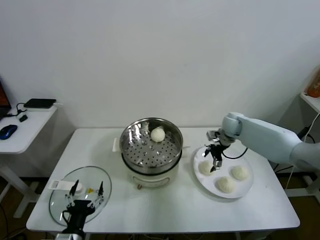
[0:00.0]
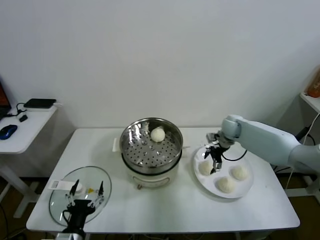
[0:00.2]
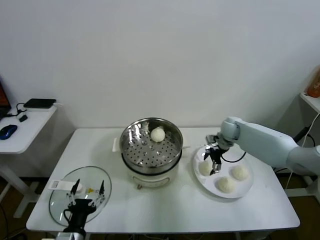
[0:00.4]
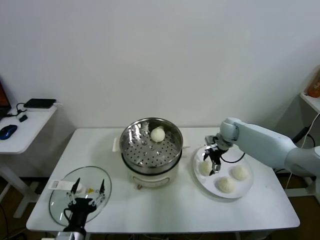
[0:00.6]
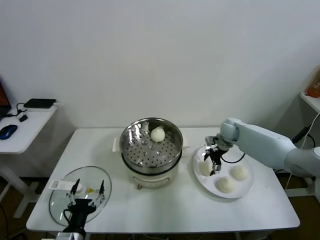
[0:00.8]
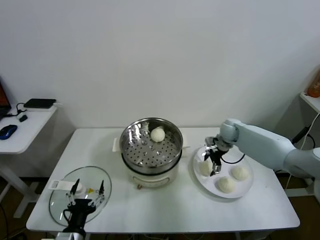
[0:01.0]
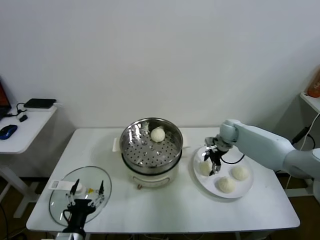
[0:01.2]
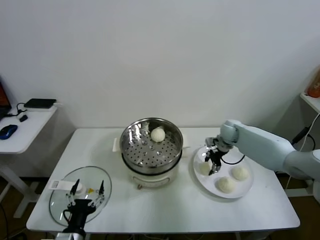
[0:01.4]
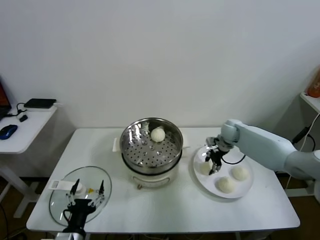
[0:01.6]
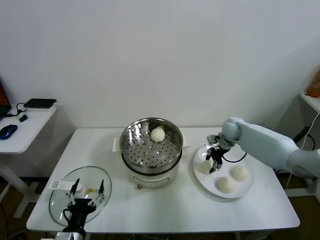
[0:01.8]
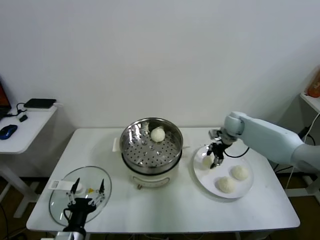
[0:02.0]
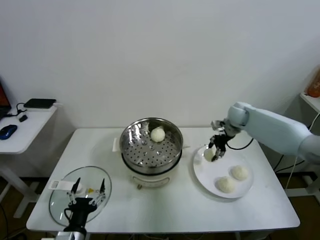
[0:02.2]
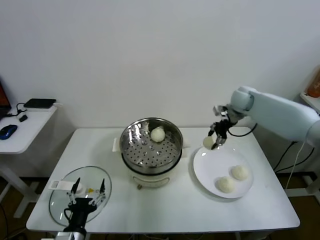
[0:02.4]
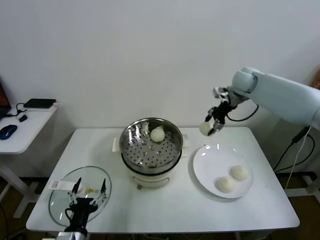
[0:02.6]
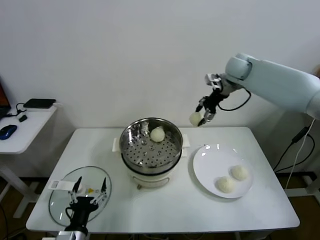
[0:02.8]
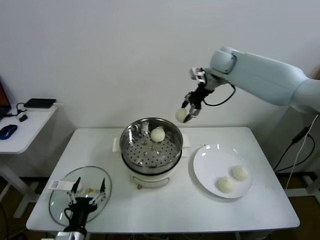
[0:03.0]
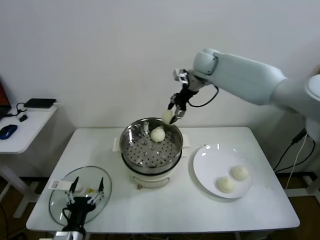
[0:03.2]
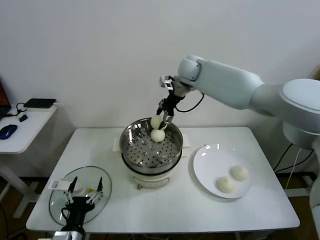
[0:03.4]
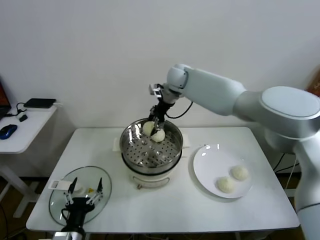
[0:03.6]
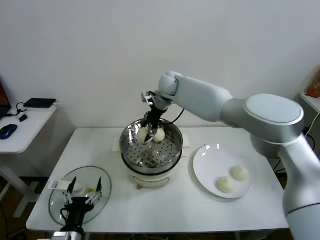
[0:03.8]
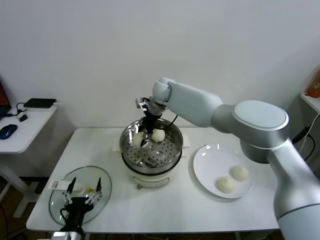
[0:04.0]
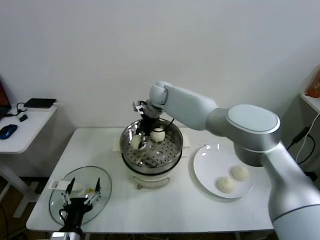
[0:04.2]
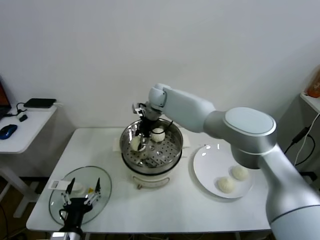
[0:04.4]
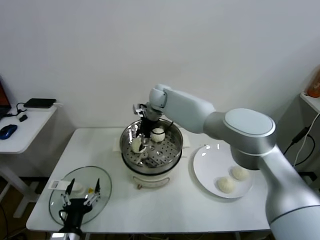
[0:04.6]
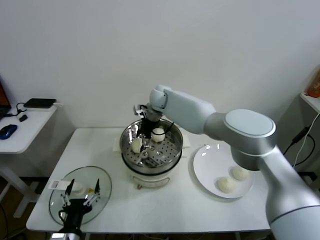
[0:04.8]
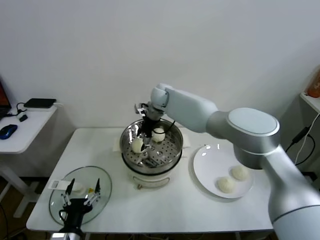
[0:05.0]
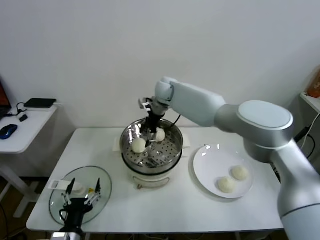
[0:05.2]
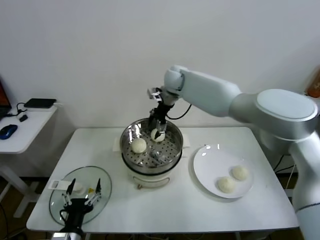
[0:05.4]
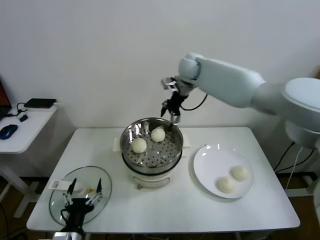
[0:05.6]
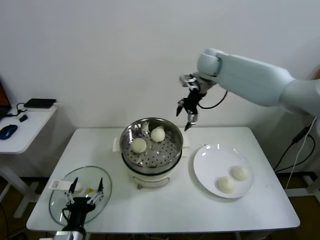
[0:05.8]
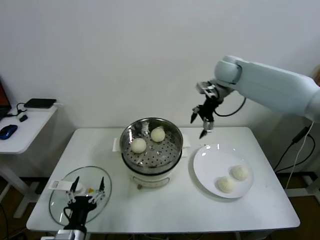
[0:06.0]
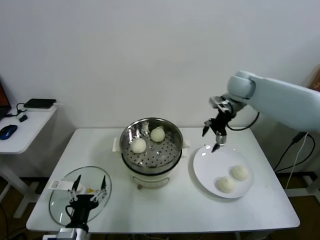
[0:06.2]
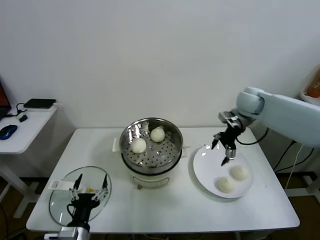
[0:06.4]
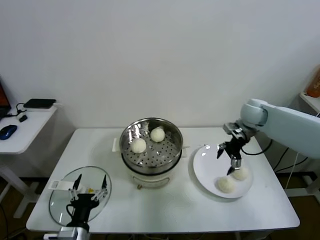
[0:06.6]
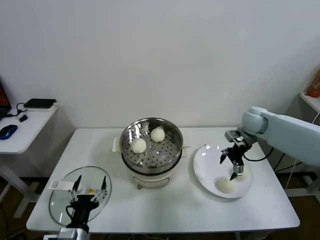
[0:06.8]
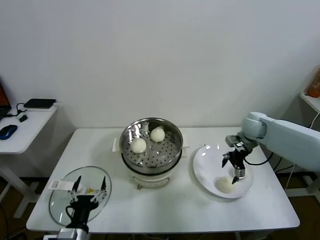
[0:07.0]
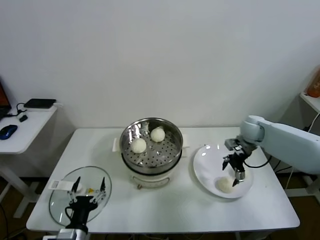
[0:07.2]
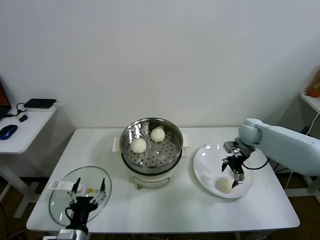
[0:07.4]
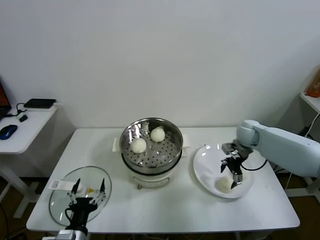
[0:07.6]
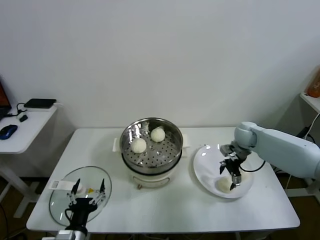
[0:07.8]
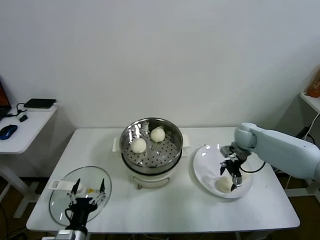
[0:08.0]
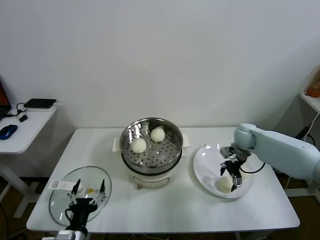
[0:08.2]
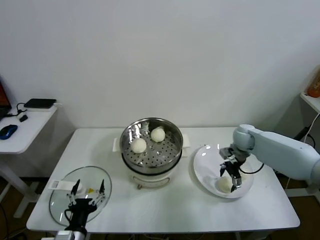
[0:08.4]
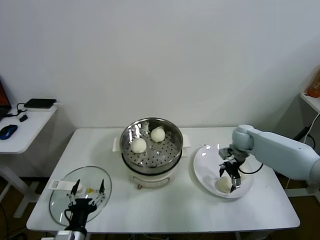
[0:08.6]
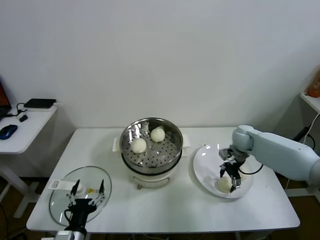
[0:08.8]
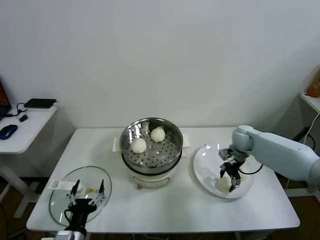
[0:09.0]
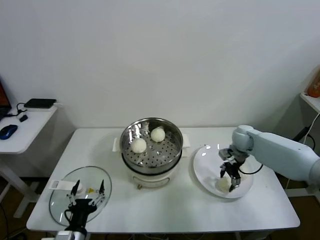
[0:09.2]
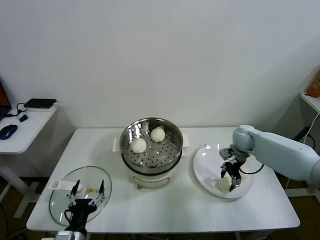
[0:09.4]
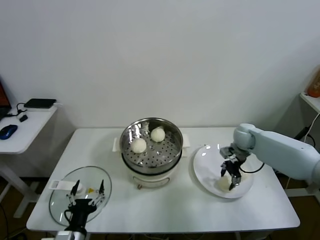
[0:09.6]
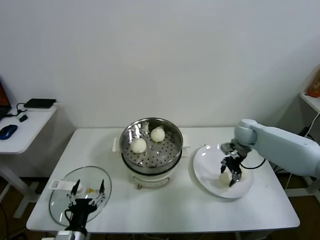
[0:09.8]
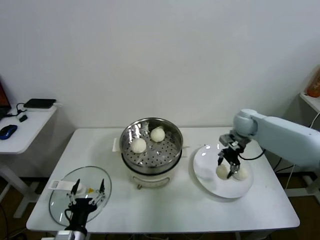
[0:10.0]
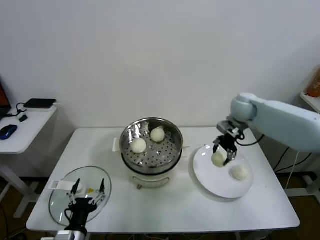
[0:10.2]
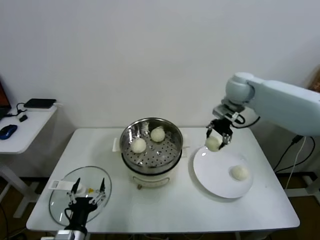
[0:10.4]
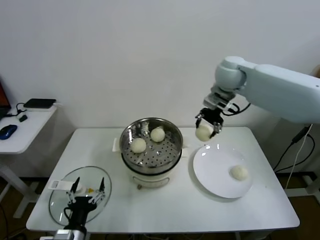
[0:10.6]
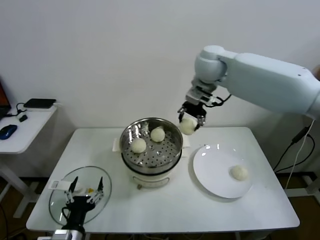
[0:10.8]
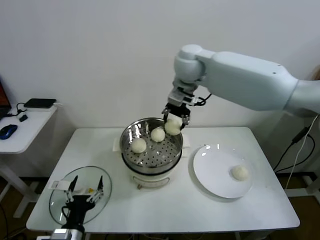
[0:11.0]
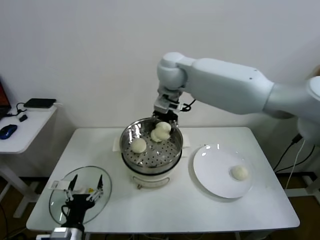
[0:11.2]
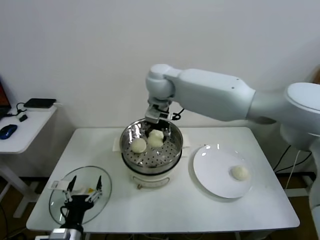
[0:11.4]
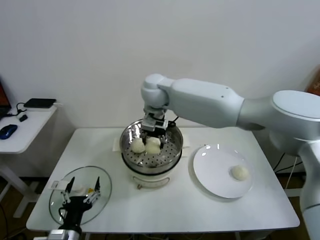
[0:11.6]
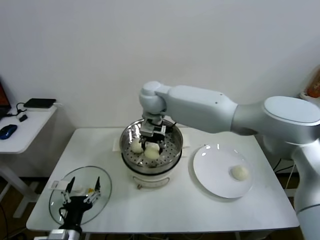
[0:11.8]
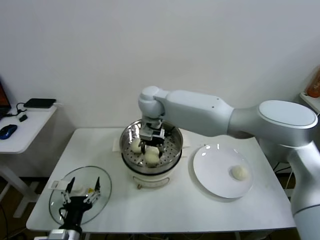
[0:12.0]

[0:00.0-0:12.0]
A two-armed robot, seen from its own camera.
Task of the whole recording: take steamed baozi put them in steamer.
Step, 0:01.8 to 0:05.0: Place the baozi on the steamer with right gripper.
Step, 0:05.2 to 0:09.8: Grasp the baozi in the plate with right gripper.
0:00.0 to 0:01.6: The right gripper closes up.
0:01.6 to 0:03.0: The right gripper heads upward and to the left, covering about 30 cm.
0:03.0 to 0:04.4: The right gripper shifts some 20 cm to the left and downward.
0:04.4 to 0:06.0: The right gripper goes about 25 cm to the right, and opens its fingers.
0:06.0 to 0:07.6: The right gripper is displaced downward by about 20 cm.
0:07.6 to 0:09.0: The right gripper closes up.
0:09.0 to 0:10.4: The right gripper is displaced upward by some 25 cm.
0:10.4 to 0:12.0: The right gripper heads to the left, covering about 25 cm.

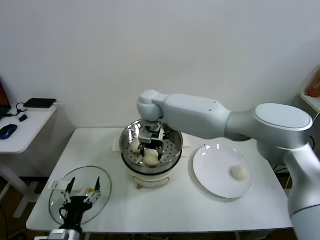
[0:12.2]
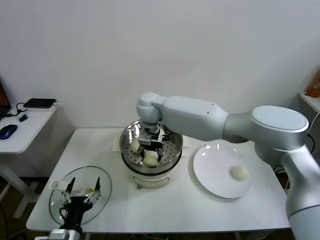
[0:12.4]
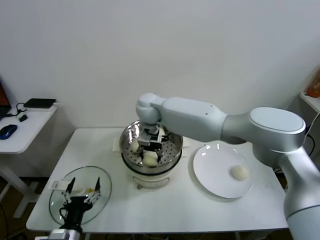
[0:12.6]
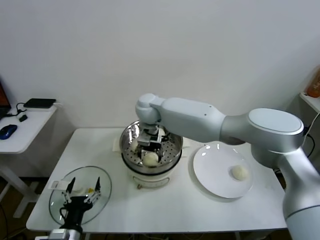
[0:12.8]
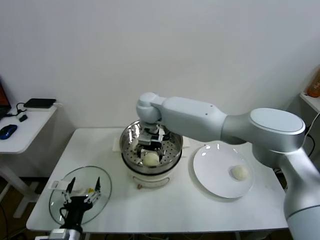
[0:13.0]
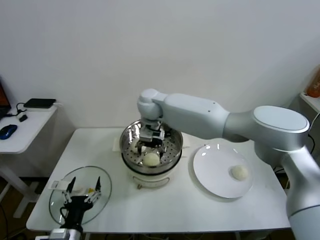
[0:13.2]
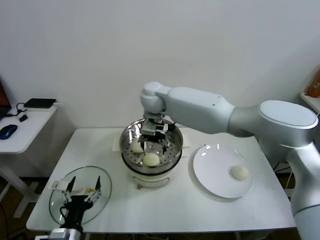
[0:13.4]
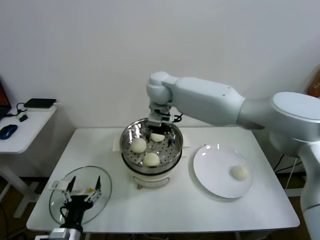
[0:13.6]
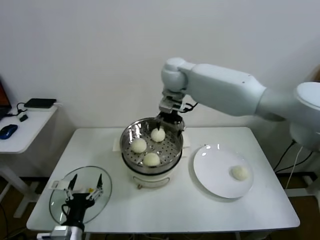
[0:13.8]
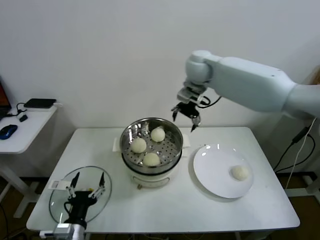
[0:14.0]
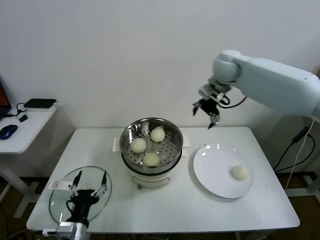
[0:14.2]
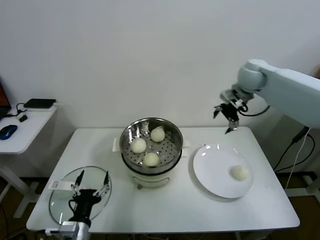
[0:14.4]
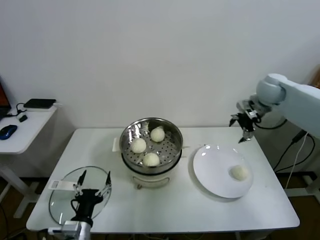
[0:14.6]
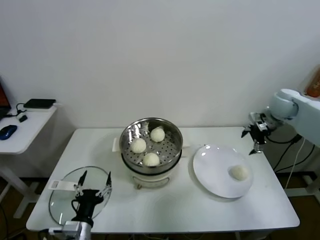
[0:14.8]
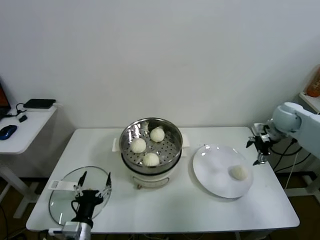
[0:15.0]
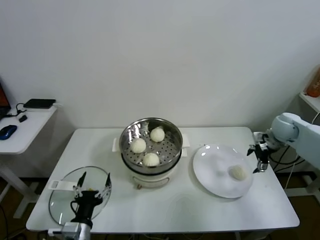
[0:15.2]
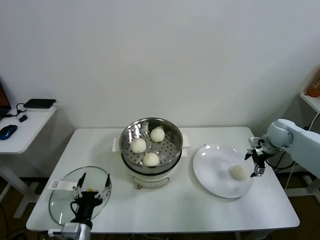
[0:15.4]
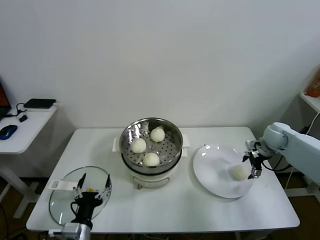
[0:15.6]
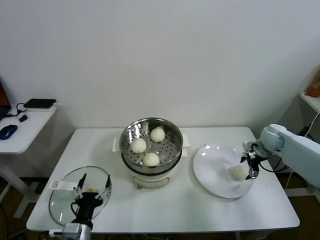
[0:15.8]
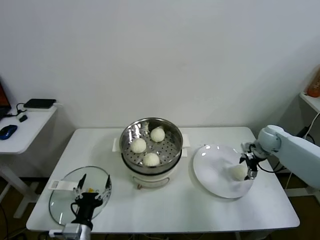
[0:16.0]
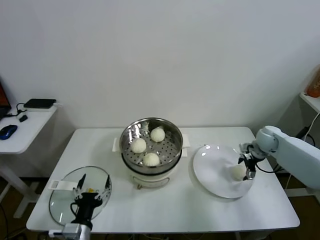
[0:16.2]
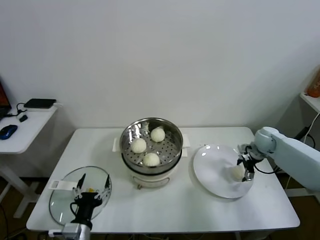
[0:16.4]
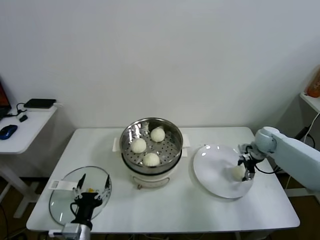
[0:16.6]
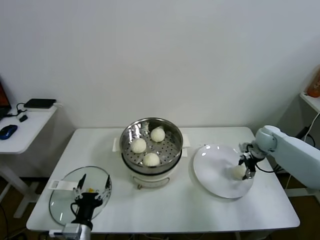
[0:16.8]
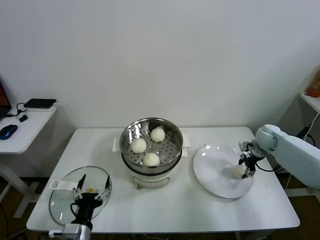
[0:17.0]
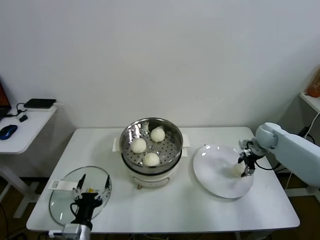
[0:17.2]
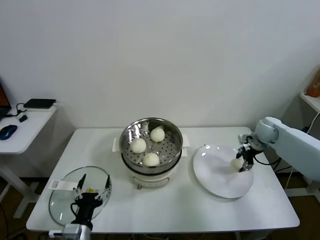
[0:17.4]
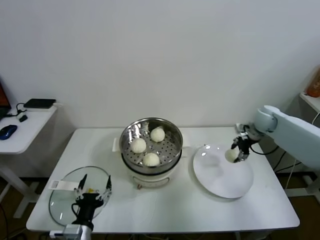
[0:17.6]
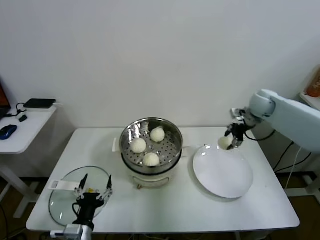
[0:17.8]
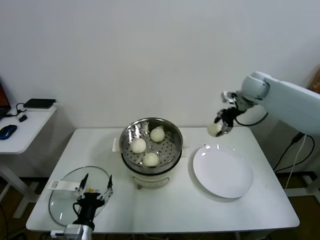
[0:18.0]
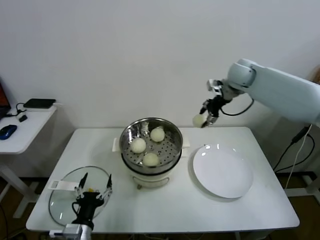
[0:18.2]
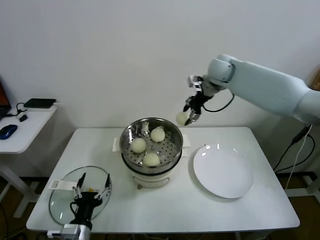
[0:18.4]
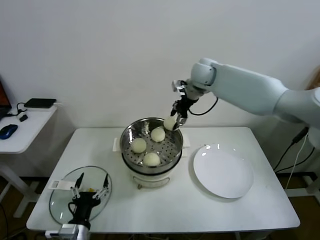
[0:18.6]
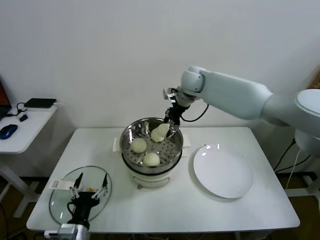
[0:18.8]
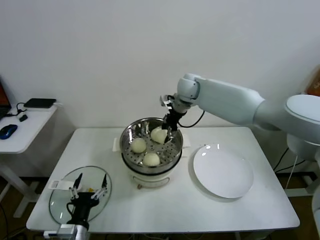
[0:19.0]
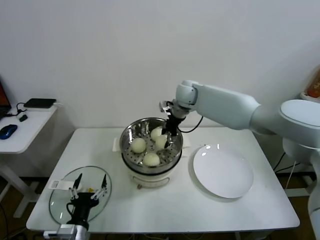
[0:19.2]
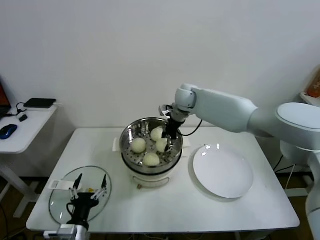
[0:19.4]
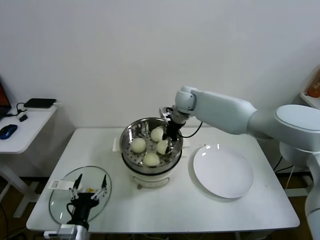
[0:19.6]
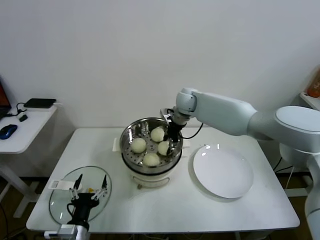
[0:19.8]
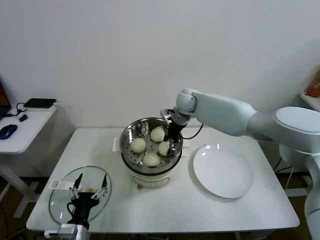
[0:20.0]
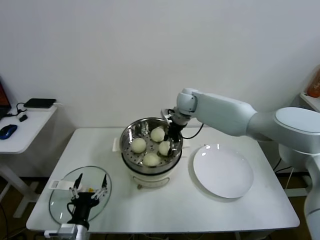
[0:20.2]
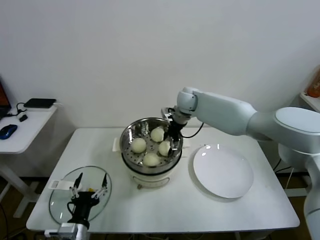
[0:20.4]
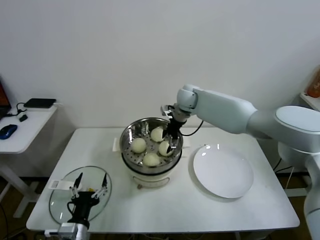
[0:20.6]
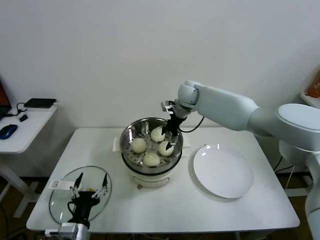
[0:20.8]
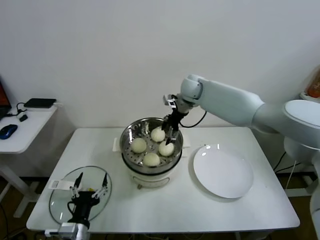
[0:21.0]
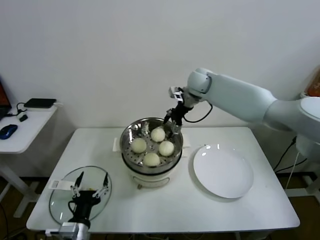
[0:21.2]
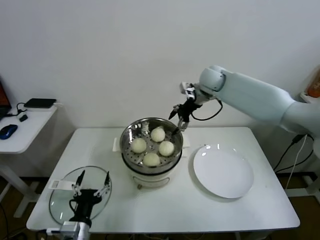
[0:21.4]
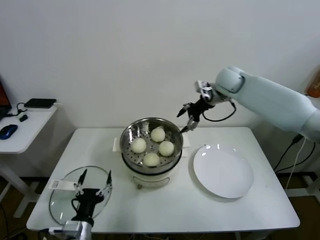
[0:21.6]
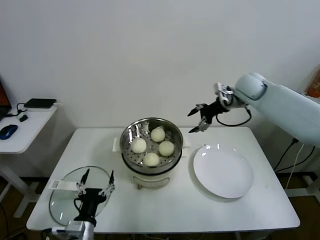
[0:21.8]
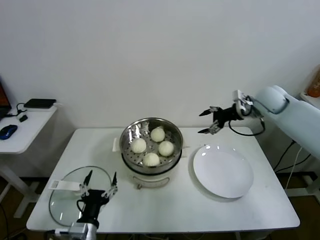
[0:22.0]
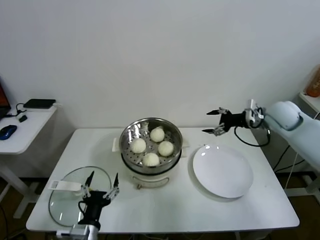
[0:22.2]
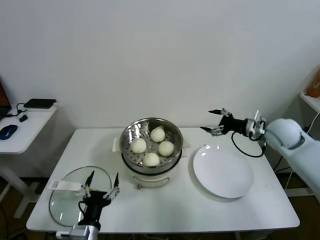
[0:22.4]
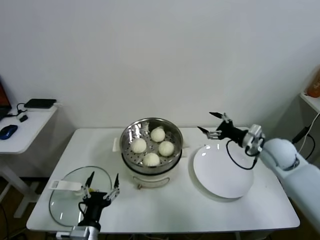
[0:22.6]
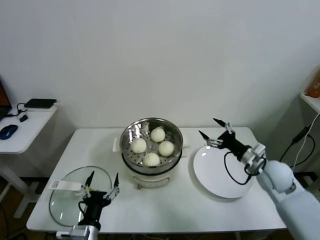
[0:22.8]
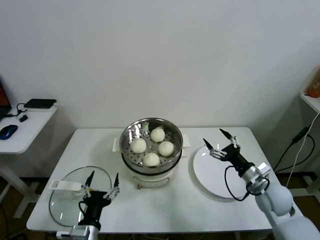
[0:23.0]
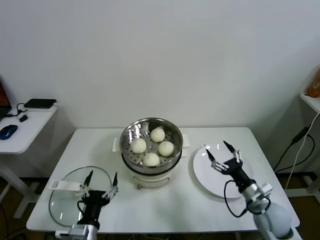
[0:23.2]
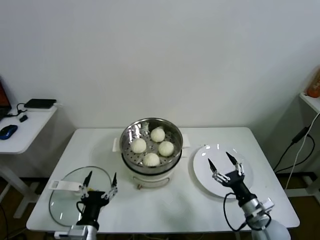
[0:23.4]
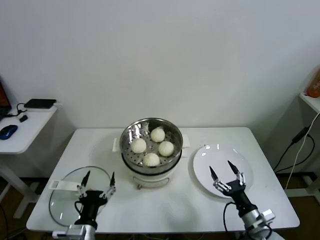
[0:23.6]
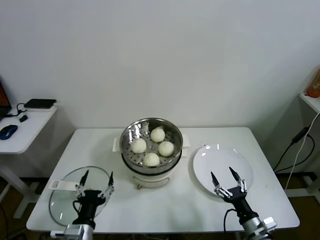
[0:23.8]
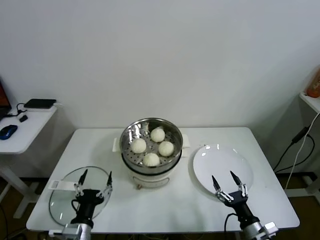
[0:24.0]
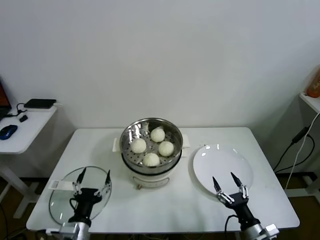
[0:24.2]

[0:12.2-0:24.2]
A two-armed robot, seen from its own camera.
Task of the whole recording: take steamed baozi put them in steamer.
Step, 0:13.2 to 0:16.8: Grasp the baozi in the plate with right gripper.
Step, 0:17.0 to 0:20.4: Place the baozi on the steamer with right gripper.
0:12.2 to 0:13.8: The right gripper shifts approximately 15 cm upward and to the right, and opens.
0:13.8 to 0:15.2: The right gripper moves to the right and downward, about 40 cm.
0:15.2 to 0:16.6: The right gripper is displaced downward by some 10 cm.
0:16.6 to 0:18.2: The right gripper moves upward and to the left, some 30 cm, and closes up.
0:18.2 to 0:19.8: The right gripper travels to the left and downward by some 20 cm.
0:19.8 to 0:21.2: The right gripper goes about 5 cm upward, and opens its fingers.
0:21.2 to 0:22.6: The right gripper shifts about 35 cm to the right, backward and downward.
0:22.6 to 0:24.2: The right gripper heads backward and downward, covering approximately 35 cm.
